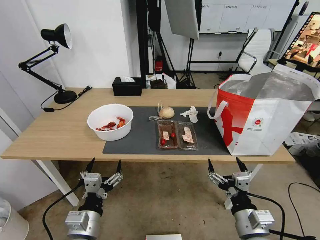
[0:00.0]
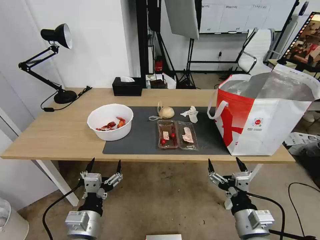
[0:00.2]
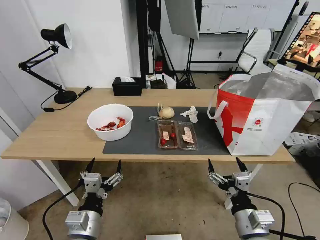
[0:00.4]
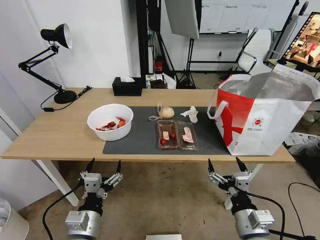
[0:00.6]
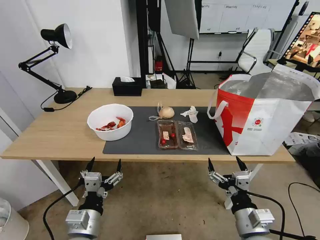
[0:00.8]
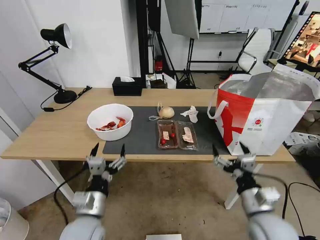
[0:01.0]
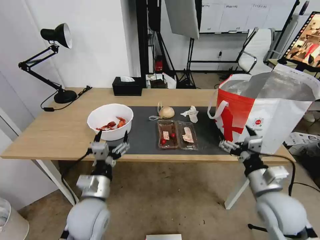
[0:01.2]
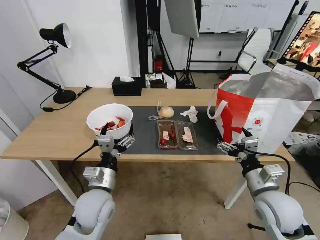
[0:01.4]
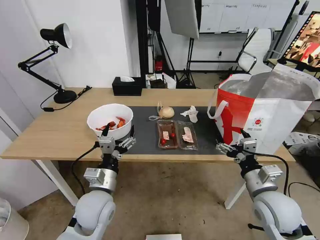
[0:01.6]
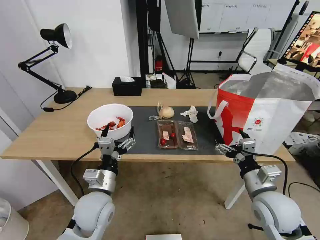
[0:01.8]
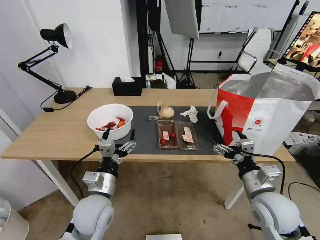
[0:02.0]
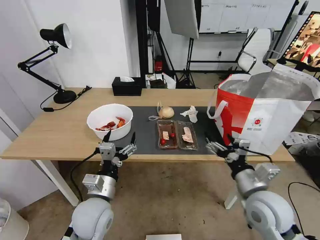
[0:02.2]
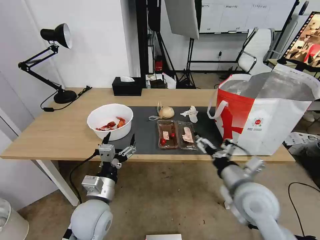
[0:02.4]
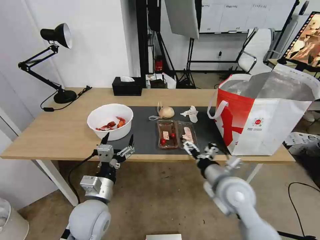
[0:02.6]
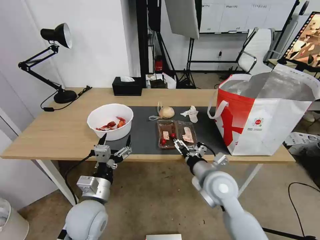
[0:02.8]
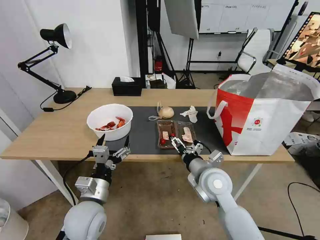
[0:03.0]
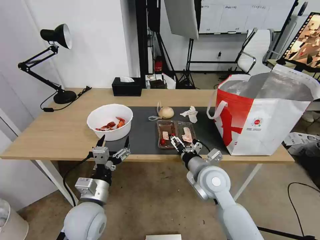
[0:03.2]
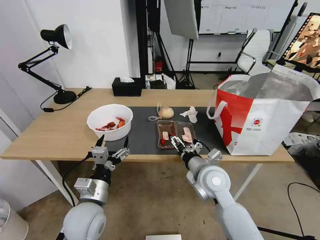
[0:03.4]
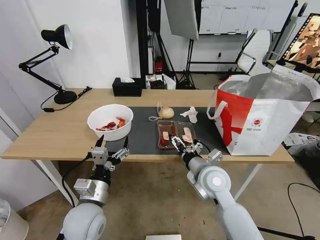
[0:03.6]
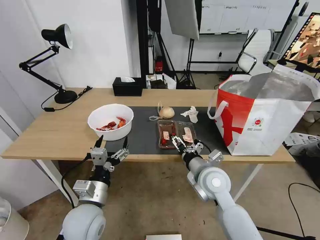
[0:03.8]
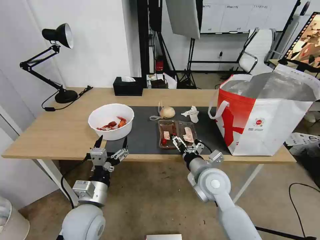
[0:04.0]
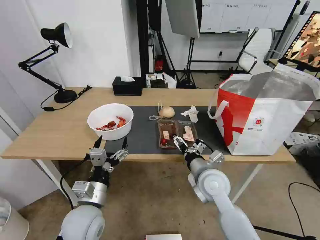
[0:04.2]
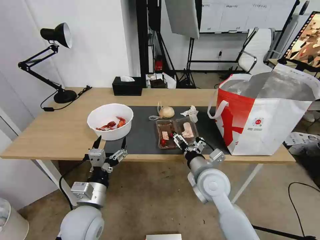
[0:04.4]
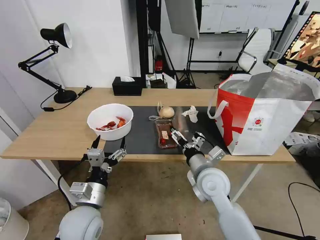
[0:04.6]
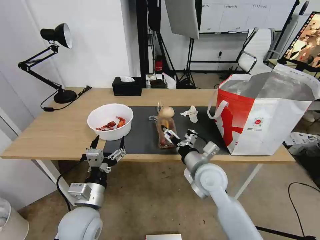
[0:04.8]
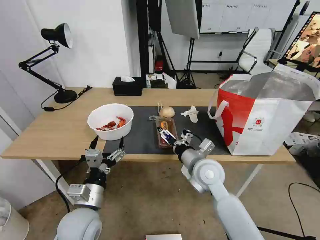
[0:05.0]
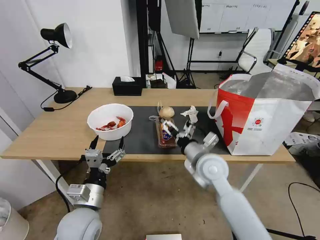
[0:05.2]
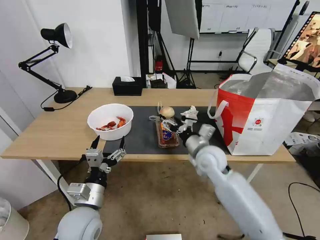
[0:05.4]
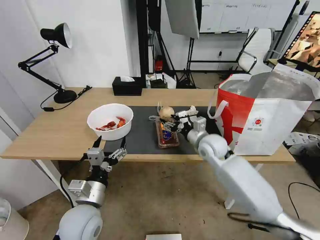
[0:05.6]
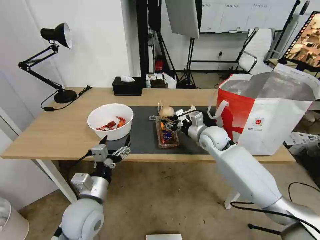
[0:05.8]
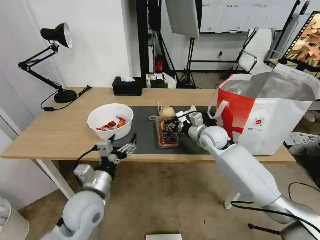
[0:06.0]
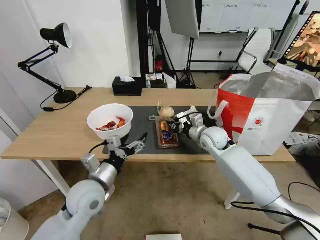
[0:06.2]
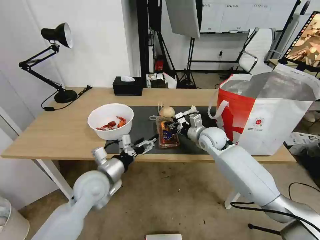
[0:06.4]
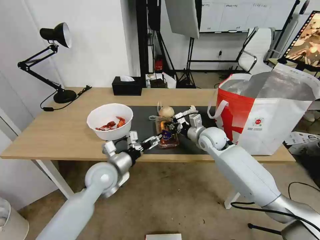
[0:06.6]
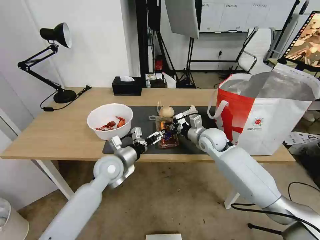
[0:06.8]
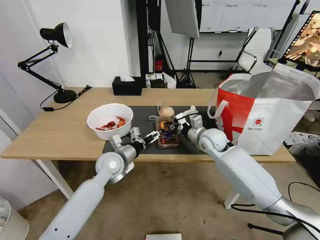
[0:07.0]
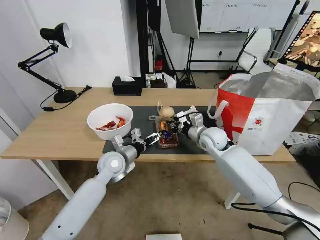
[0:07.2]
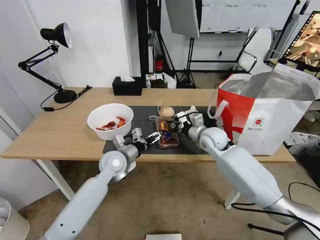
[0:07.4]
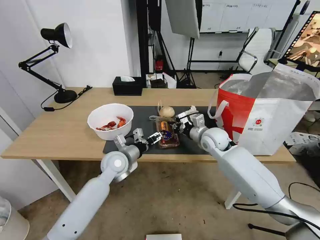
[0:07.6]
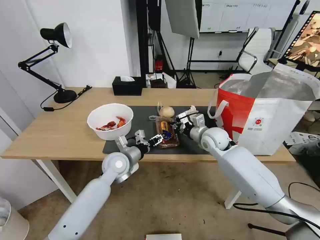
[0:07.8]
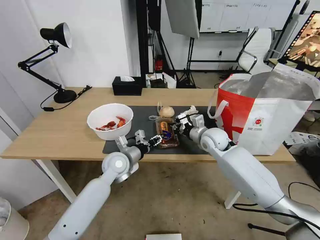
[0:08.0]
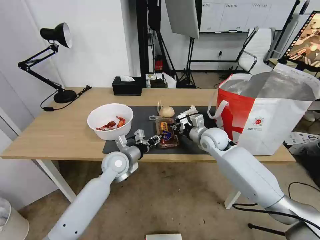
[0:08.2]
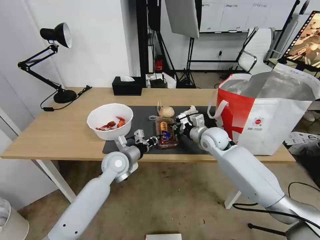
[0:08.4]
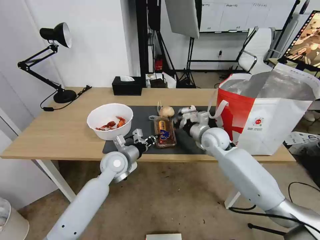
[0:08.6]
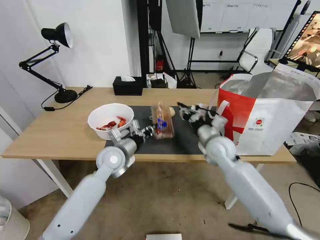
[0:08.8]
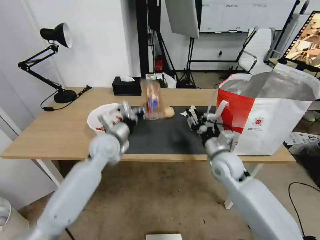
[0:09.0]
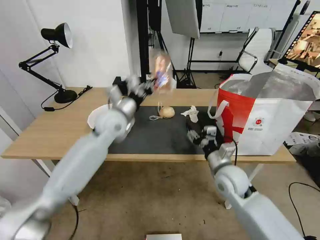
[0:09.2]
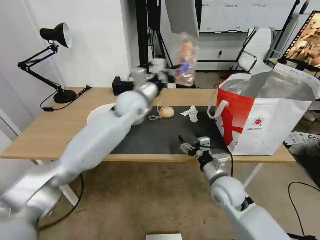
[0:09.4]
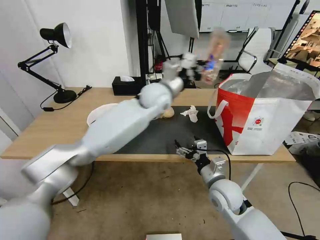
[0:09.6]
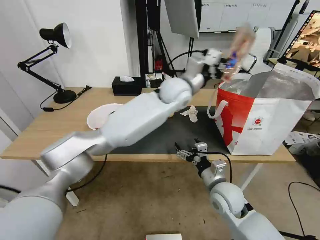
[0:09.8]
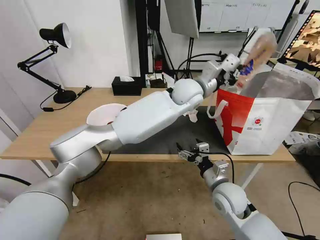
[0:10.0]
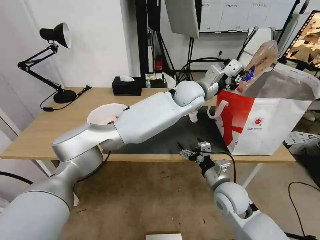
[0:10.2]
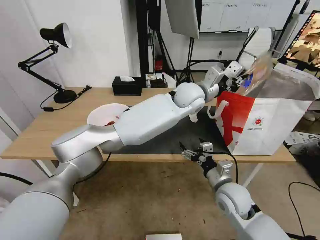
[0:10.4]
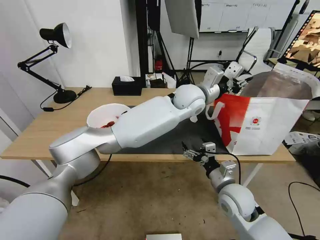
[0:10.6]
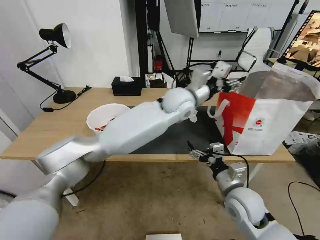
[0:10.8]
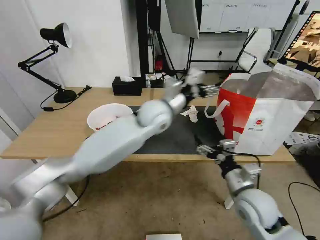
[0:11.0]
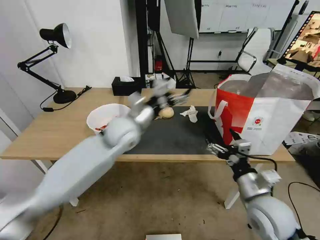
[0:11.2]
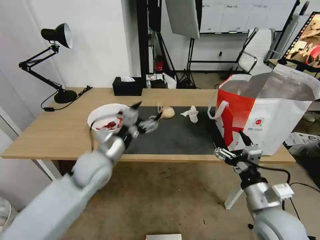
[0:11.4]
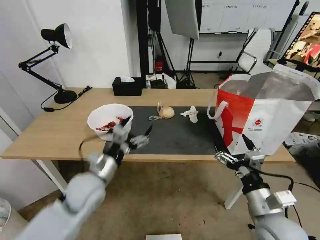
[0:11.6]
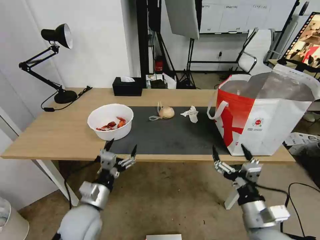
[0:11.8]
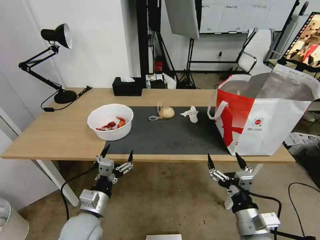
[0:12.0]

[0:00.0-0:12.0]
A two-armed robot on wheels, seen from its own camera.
Task of the whole recording: Pick up the trash from the table and place it into the takeout bag.
0:01.6 to 0:03.0: The right gripper moves to the left and forward, roughly 15 cm.
0:03.0 to 0:04.4: There are only small adjustments of the grippers.
0:04.4 to 0:06.0: The right gripper moves forward, about 15 cm, and closes up.
0:06.0 to 0:07.6: The left gripper heads forward, covering about 15 cm.
0:07.6 to 0:09.0: The left gripper travels upward by approximately 10 cm, and closes; the right gripper heads backward, covering approximately 10 cm, and opens its fingers.
0:09.0 to 0:10.4: The right gripper travels backward by about 10 cm, and opens up. Meanwhile the left gripper goes approximately 30 cm to the right and upward.
0:10.4 to 0:12.0: The left gripper travels backward, to the left and downward by roughly 50 cm, and opens its fingers. Meanwhile the right gripper travels backward by roughly 15 cm.

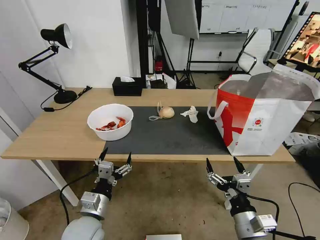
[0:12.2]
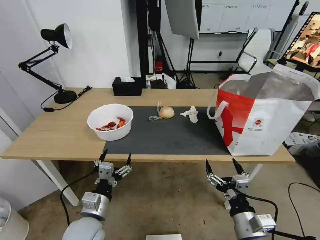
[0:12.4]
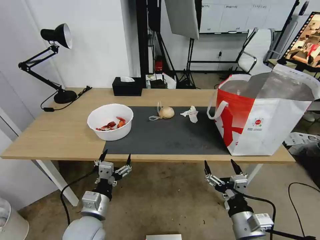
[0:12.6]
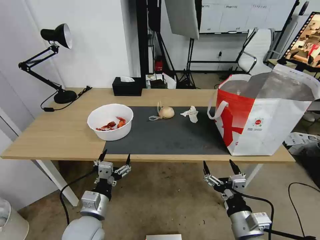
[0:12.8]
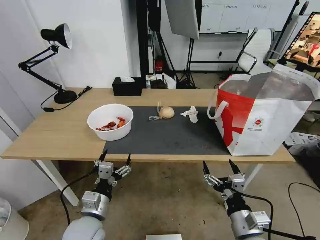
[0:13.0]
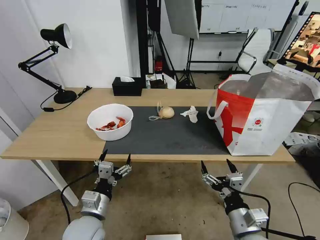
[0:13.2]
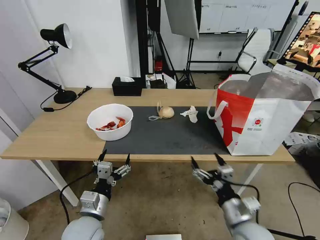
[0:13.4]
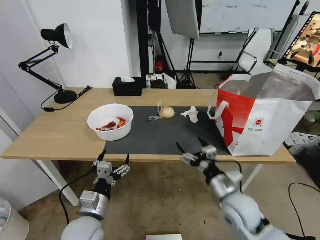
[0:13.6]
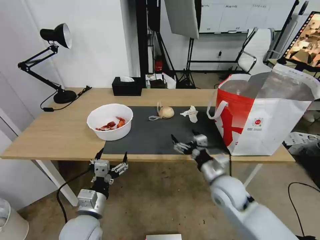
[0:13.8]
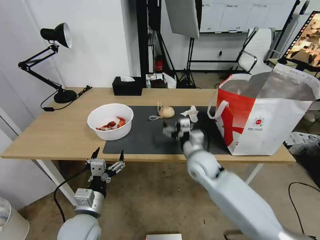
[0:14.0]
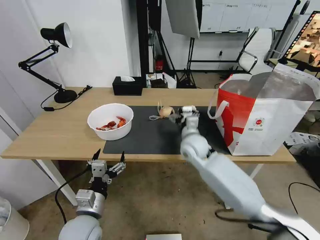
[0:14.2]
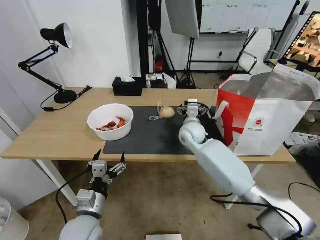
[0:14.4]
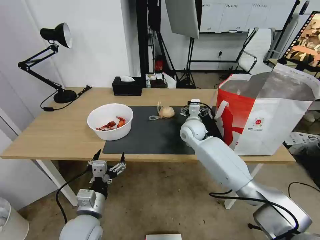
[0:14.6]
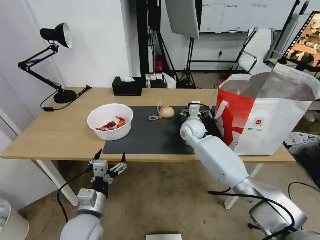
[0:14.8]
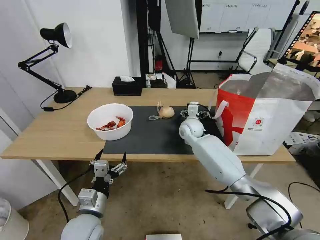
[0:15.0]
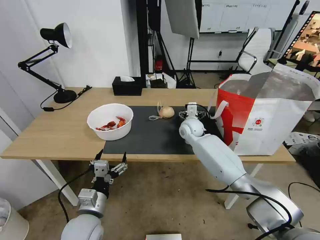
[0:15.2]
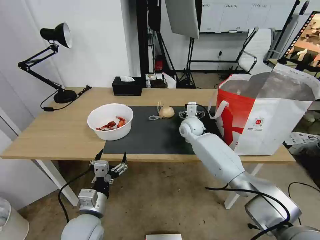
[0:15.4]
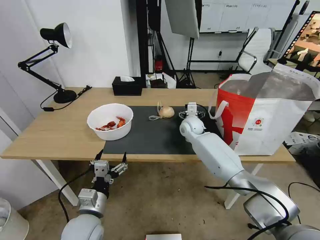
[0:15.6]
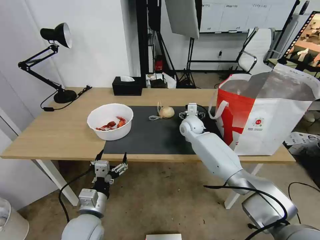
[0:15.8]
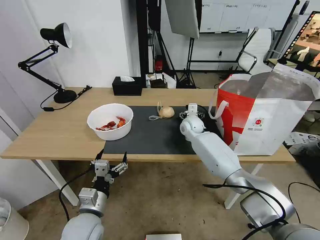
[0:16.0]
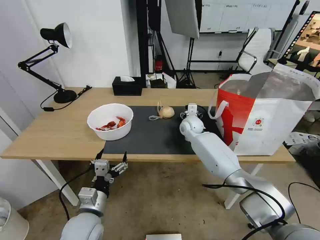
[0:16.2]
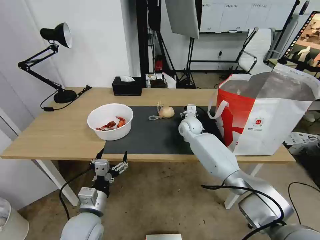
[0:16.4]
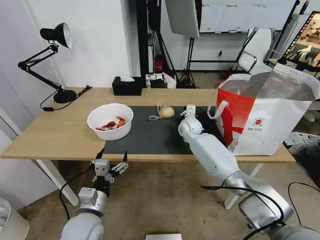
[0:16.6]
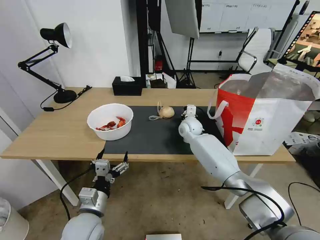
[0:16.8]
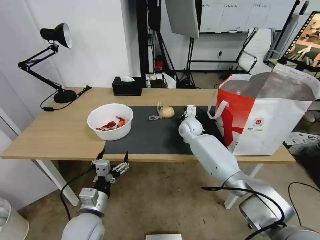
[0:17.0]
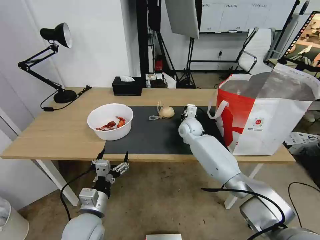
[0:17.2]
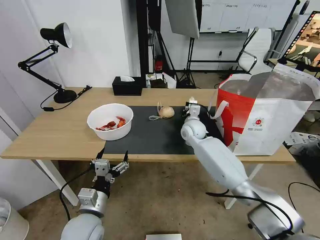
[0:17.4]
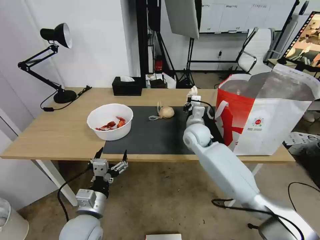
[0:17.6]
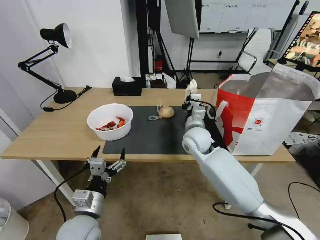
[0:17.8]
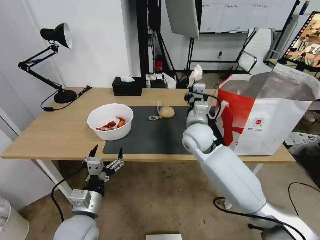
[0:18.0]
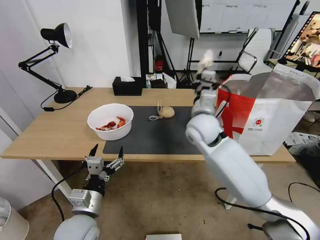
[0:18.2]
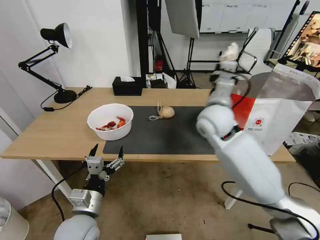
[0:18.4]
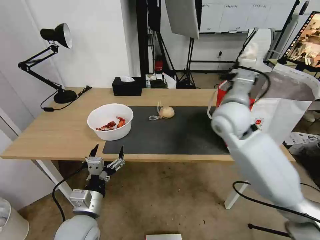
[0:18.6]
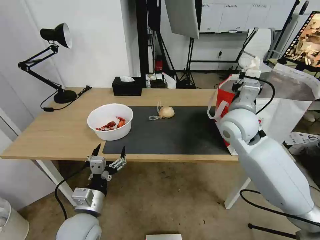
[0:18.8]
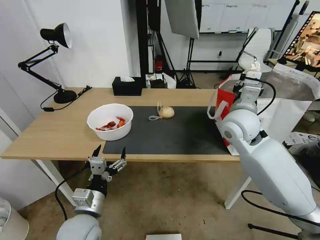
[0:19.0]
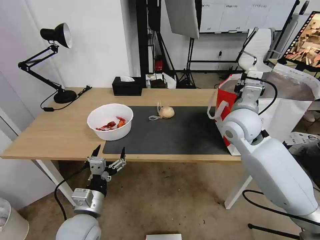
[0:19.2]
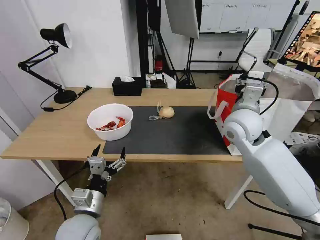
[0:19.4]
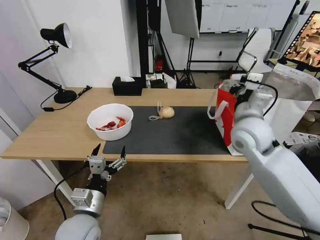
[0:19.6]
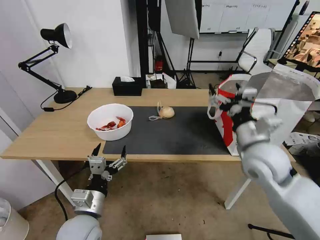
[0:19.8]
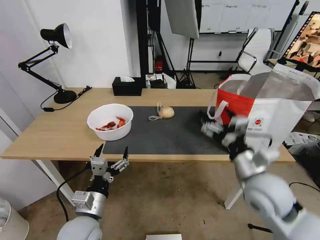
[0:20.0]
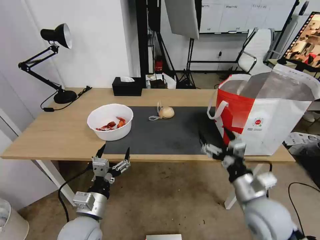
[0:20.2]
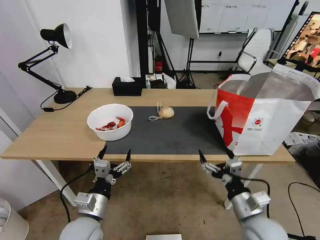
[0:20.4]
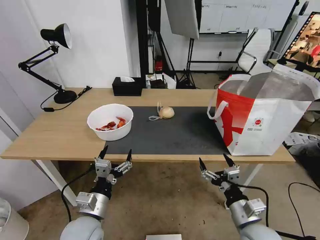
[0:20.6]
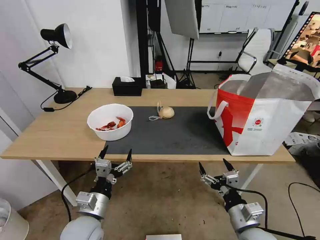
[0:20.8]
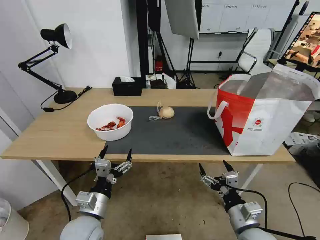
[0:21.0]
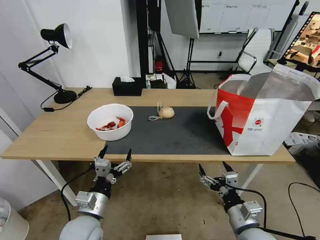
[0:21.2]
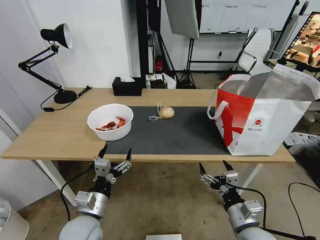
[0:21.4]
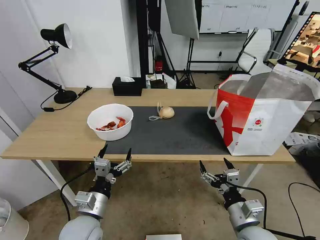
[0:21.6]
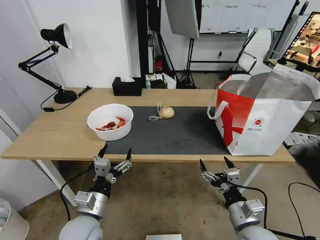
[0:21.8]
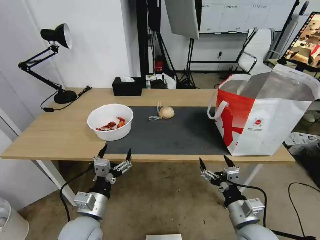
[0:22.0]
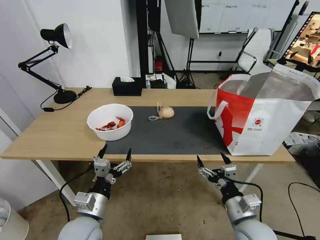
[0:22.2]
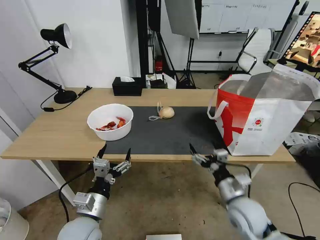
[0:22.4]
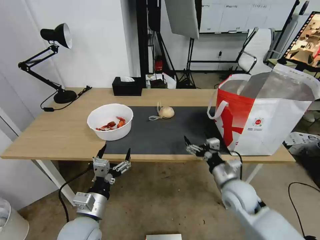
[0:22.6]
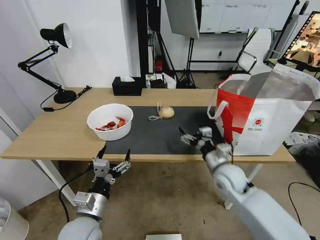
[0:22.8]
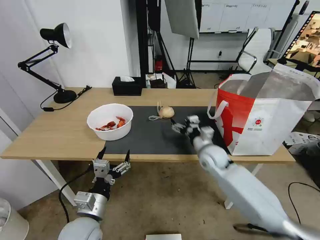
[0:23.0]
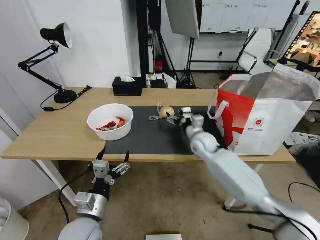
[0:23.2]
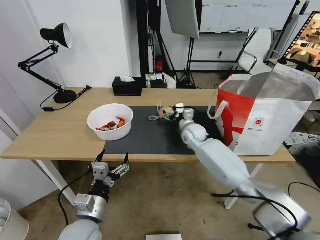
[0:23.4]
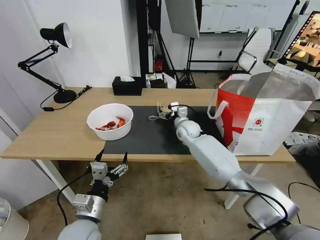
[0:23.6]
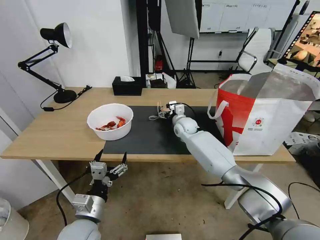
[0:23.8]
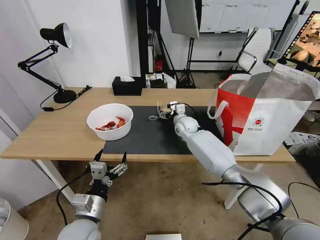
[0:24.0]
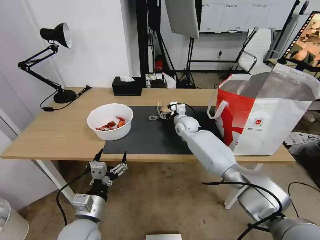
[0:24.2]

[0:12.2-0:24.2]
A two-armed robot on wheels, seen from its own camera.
Task of the whole recording: Pick up the trash from the table and place it into the takeout bag.
0:12.2 to 0:13.8: The right gripper goes roughly 15 cm forward.
0:13.8 to 0:15.2: The right gripper shifts about 25 cm forward.
0:15.2 to 0:16.6: The right gripper closes.
0:16.6 to 0:18.2: The right gripper heads backward and upward, covering about 20 cm.
0:18.2 to 0:19.8: The right gripper is displaced to the right and backward by approximately 15 cm, and opens its fingers.
0:19.8 to 0:21.2: The right gripper is displaced downward and backward by some 25 cm.
0:21.2 to 0:22.6: The right gripper heads forward, covering roughly 10 cm.
0:22.6 to 0:24.2: The right gripper shifts about 30 cm forward.
